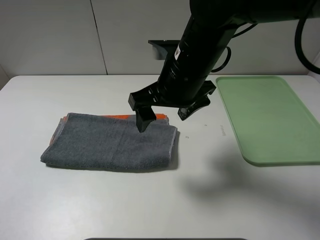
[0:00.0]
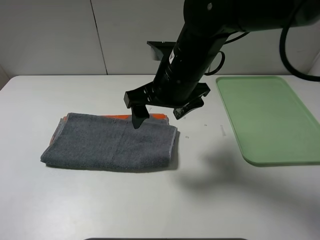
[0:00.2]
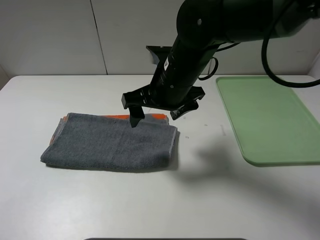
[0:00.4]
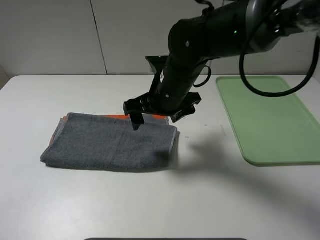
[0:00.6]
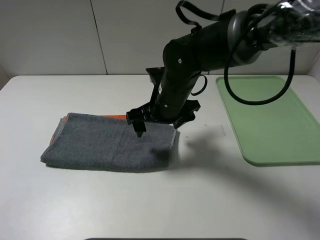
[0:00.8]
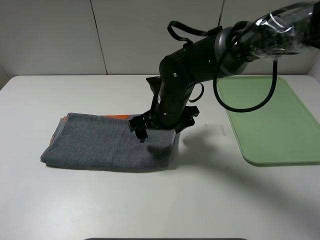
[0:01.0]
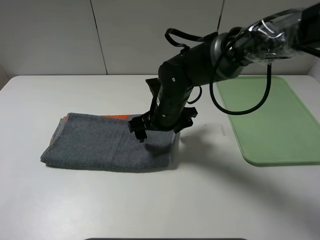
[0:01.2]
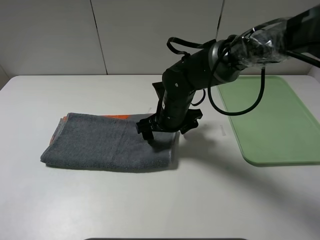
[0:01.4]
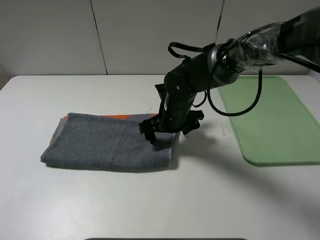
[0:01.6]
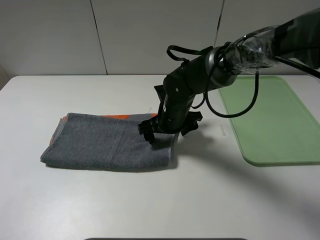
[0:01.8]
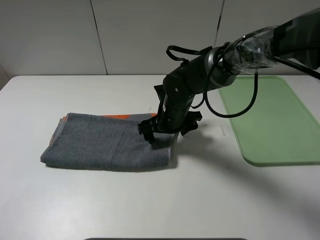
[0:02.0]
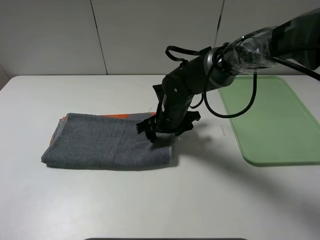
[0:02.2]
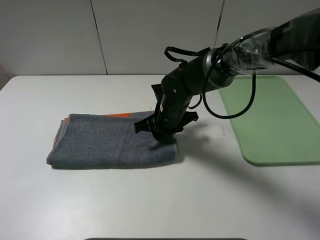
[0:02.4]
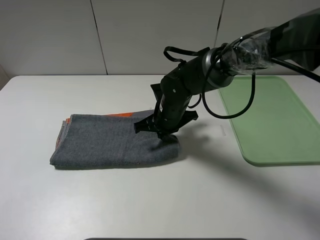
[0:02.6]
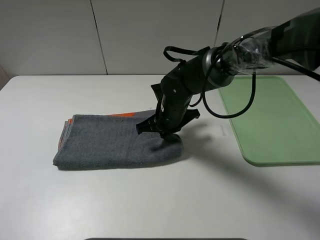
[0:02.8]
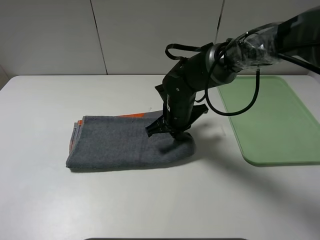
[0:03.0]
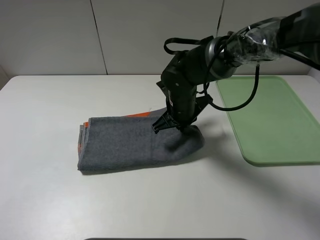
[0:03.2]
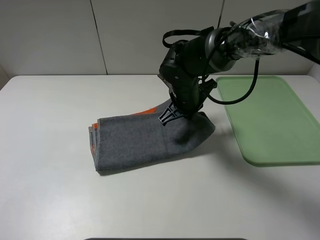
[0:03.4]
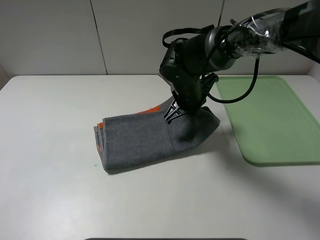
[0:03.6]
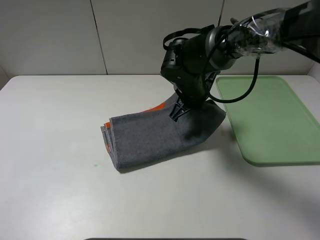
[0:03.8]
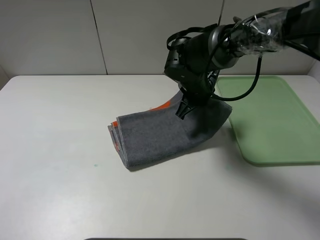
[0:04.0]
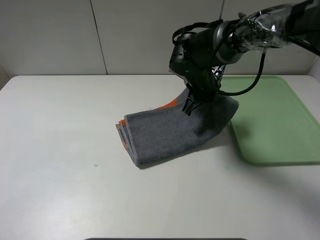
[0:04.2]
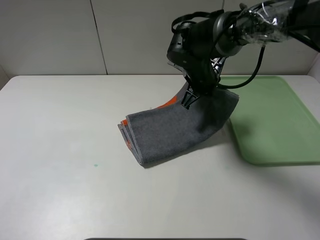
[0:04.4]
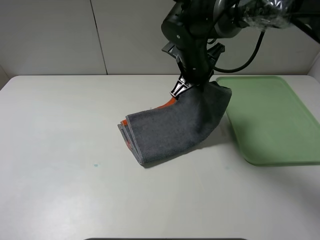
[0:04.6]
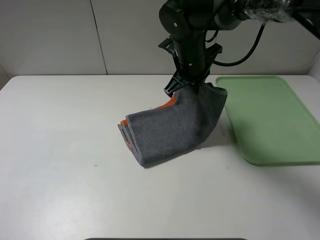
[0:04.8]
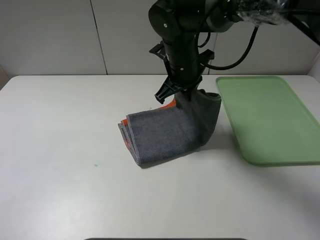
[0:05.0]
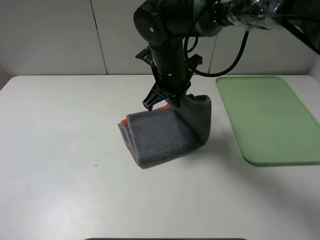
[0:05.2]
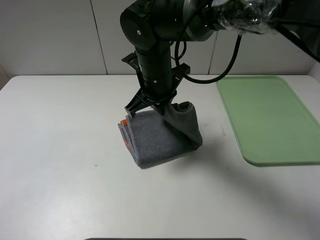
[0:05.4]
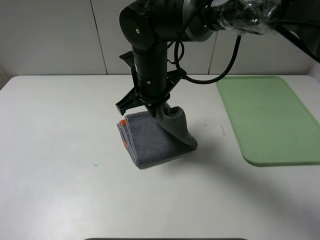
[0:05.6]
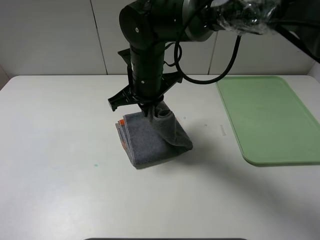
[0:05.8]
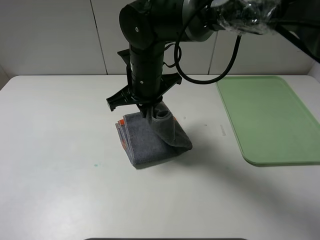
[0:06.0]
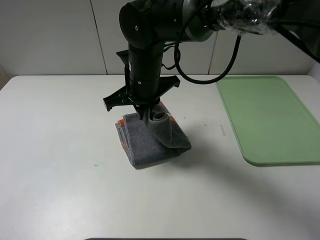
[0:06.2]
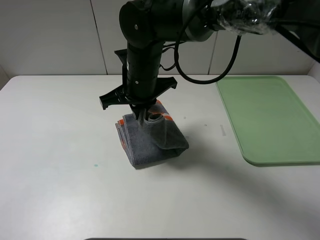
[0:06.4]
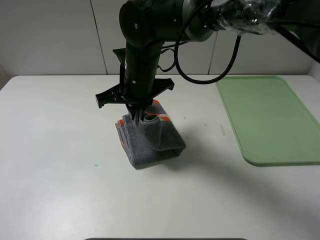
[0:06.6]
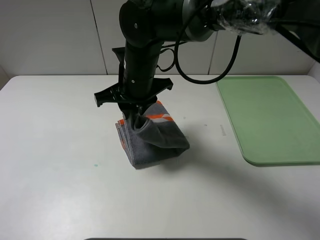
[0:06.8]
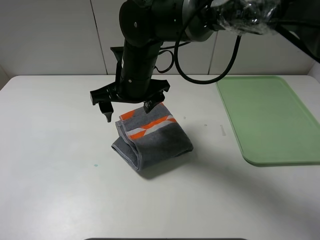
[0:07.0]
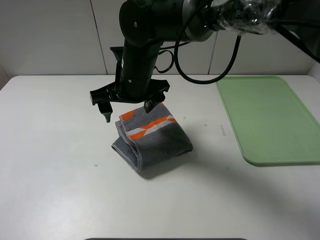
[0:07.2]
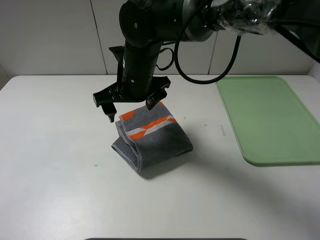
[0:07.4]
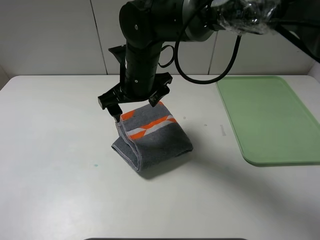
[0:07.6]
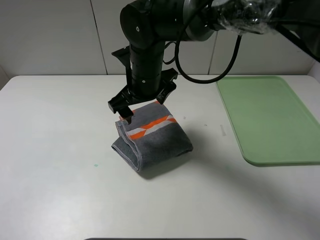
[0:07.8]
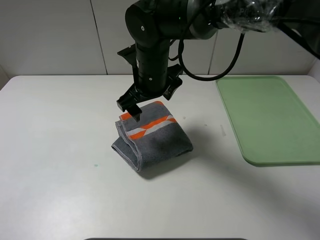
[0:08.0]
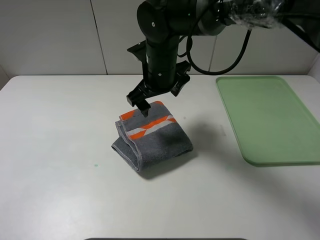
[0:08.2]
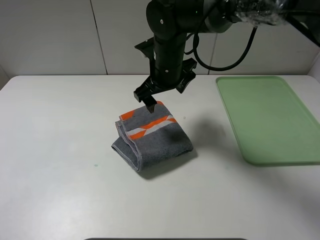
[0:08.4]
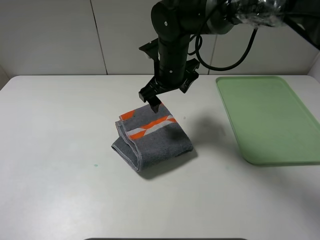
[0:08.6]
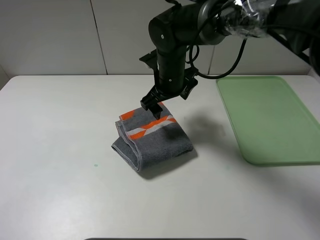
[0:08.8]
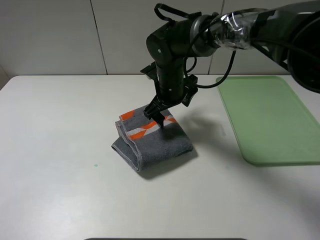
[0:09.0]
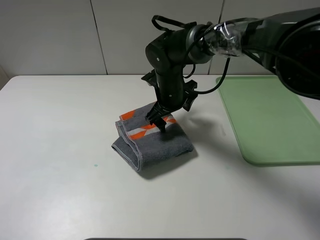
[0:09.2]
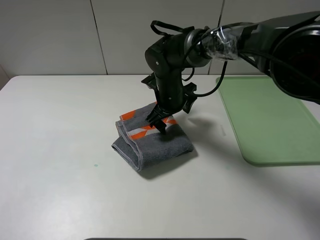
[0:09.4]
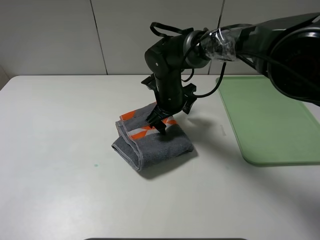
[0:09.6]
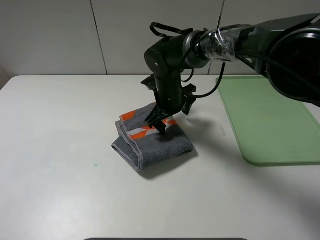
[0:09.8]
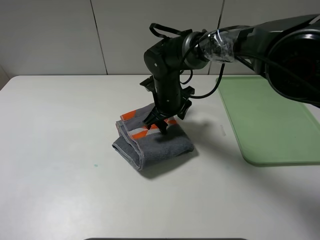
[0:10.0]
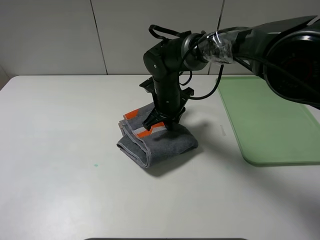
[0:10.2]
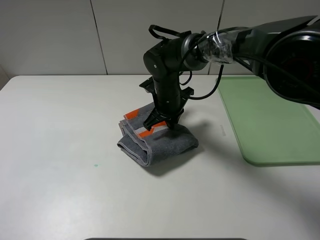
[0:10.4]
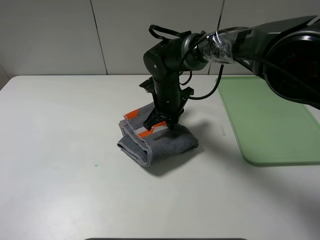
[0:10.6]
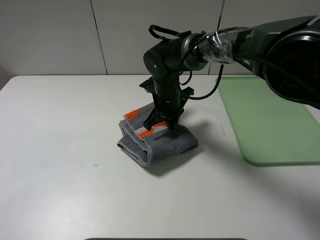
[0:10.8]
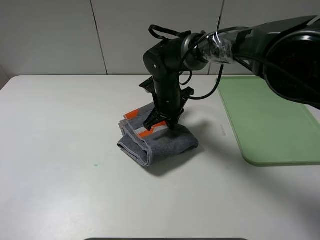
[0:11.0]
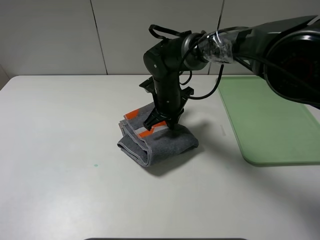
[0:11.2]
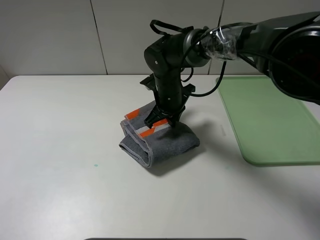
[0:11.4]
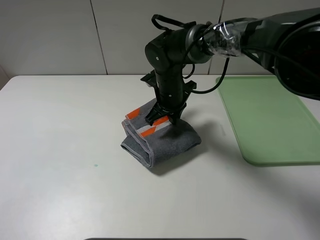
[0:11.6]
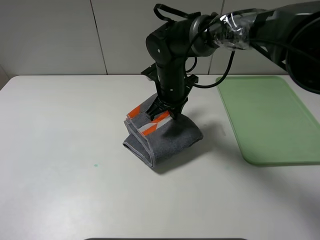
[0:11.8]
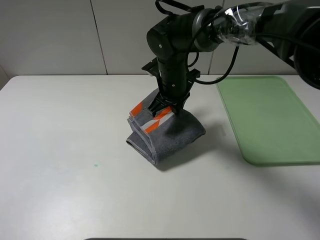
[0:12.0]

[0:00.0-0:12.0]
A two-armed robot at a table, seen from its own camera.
Step, 0:00.0 to 0:07.0: Fold the grey towel from right to left with right gripper.
0:00.0 to 0:01.6: The right gripper shifts some 15 cm downward and forward.
0:01.6 to 0:03.0: The right gripper closes.
0:03.0 to 0:04.4: The right gripper travels upward and forward by approximately 10 cm.
0:04.4 to 0:06.0: The right gripper shifts approximately 15 cm to the left and backward.
0:06.0 to 0:07.6: The right gripper opens its fingers.
0:07.6 to 0:09.0: The right gripper moves downward, to the right and forward, about 10 cm.
0:09.0 to 0:10.4: The right gripper closes.
0:10.4 to 0:12.0: The grippers make only small movements.

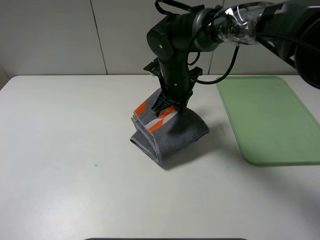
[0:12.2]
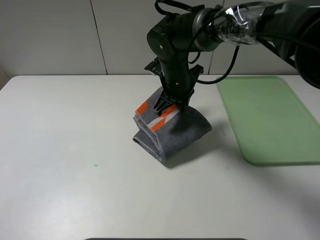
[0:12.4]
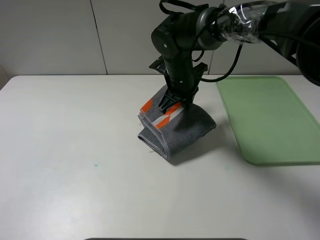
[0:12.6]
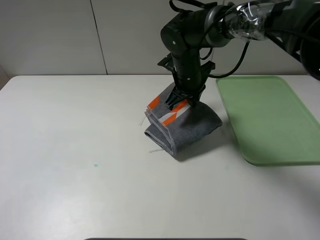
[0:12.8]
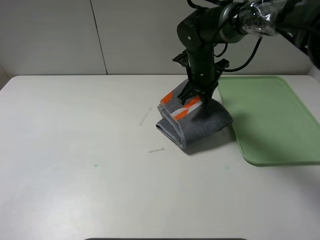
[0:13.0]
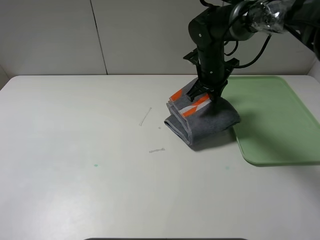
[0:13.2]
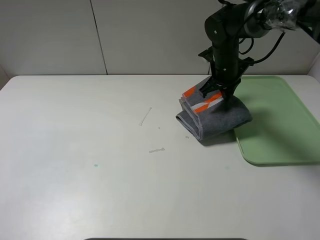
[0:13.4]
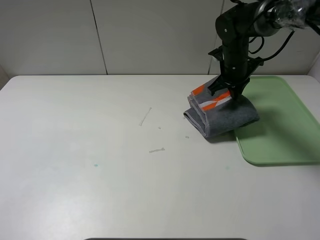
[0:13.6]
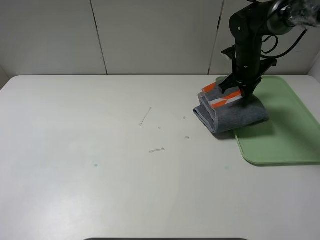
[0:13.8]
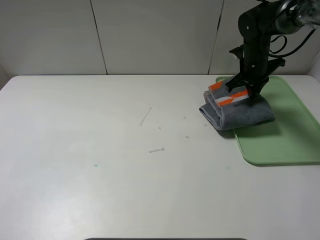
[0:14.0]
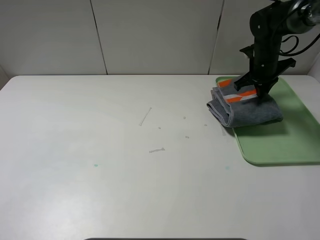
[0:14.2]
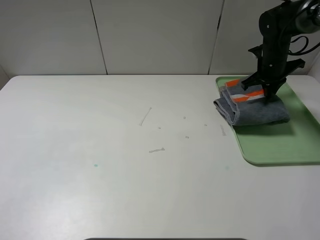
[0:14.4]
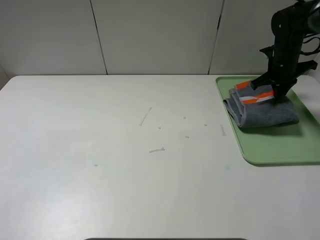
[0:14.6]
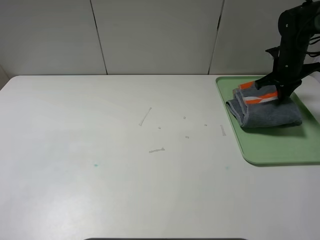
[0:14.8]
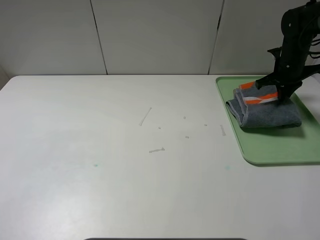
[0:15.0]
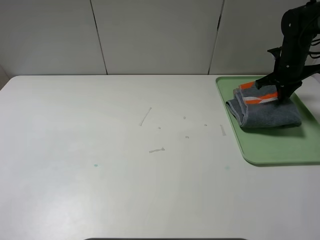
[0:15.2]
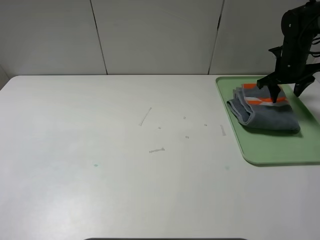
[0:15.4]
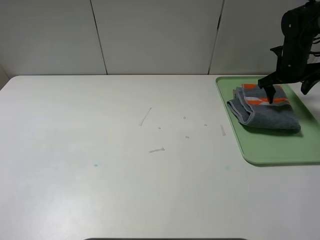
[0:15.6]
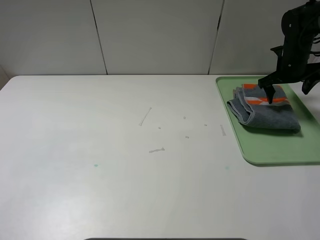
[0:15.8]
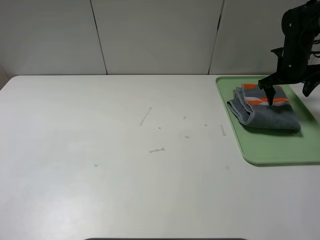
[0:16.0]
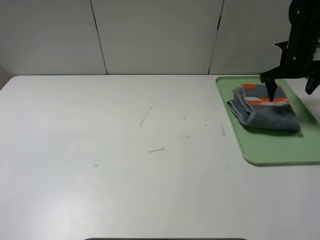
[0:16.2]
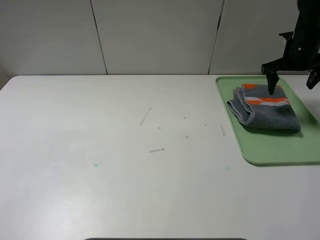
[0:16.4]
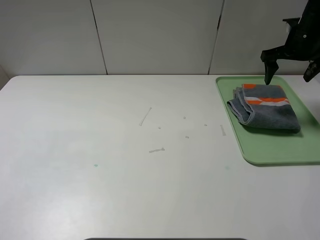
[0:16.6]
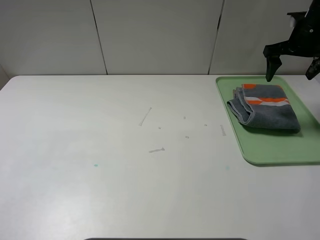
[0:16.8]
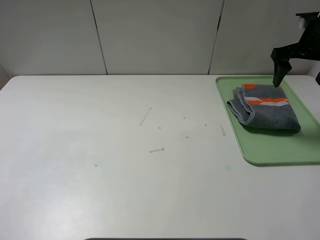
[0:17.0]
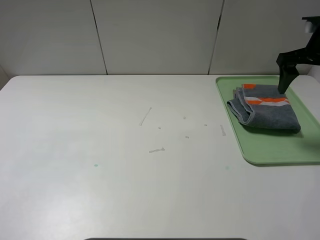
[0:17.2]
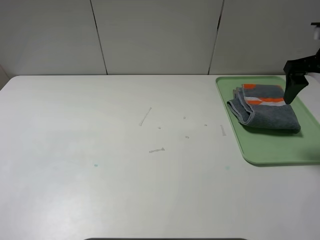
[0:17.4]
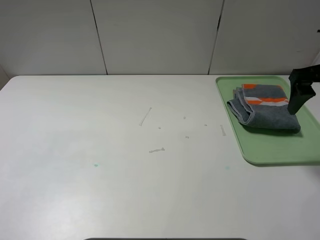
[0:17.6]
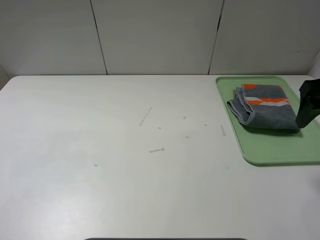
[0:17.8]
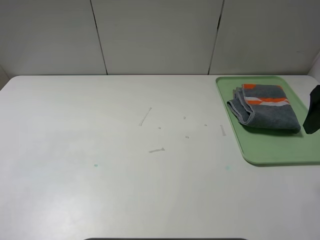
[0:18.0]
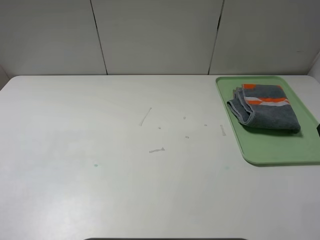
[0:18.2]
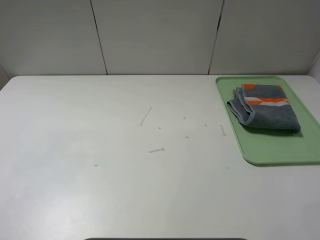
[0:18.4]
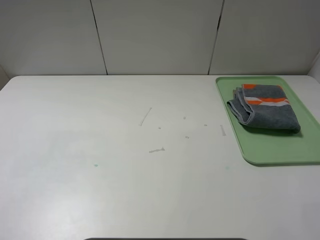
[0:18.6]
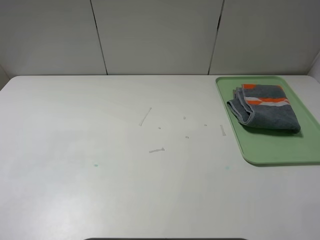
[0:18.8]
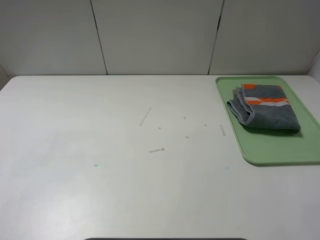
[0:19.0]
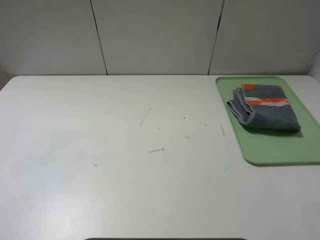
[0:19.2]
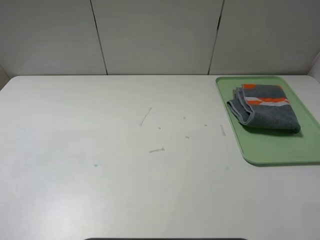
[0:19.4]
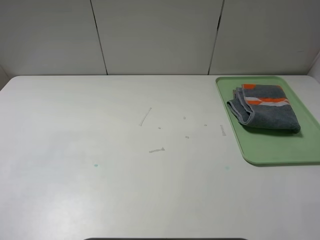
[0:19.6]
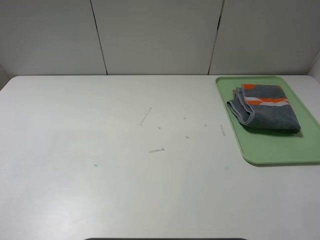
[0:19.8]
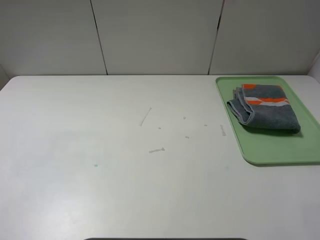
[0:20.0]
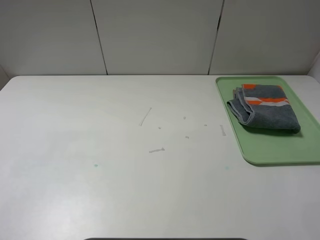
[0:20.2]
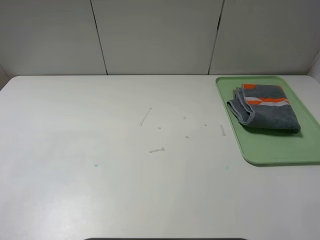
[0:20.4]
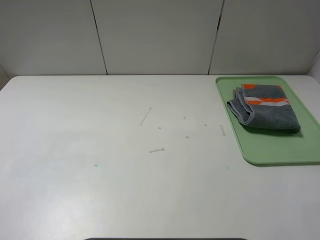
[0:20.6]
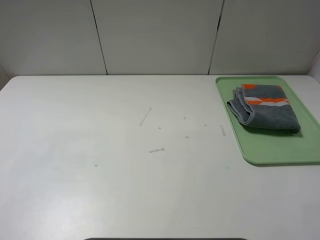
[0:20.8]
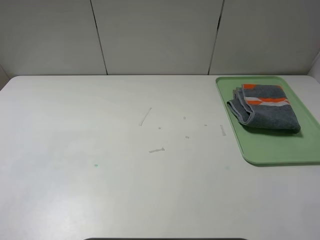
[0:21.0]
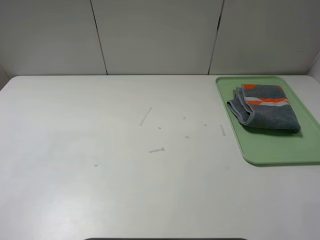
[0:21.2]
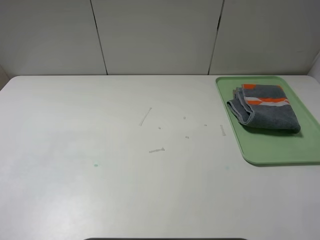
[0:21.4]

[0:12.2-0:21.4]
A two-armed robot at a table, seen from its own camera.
Step, 0:12.2 to 0:16.0: Place the folded grey towel on the tray with the right gripper.
0:12.2 to 0:13.8: The right gripper moves to the right and forward, approximately 20 cm.
0:13.8 to 0:15.2: The right gripper goes roughly 10 cm to the right.
0:15.2 to 0:16.8: The right gripper shifts approximately 10 cm upward, and opens its fingers.
0:16.8 to 0:18.4: The right gripper goes roughly 30 cm backward.
0:19.8 to 0:21.4: Both grippers stay put.
